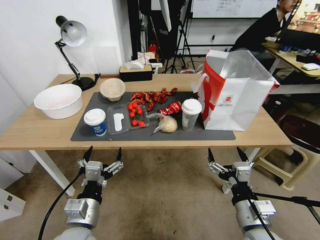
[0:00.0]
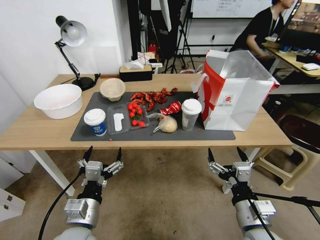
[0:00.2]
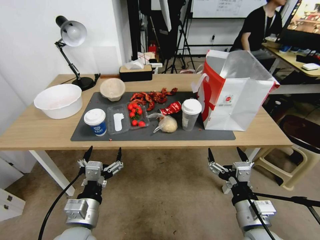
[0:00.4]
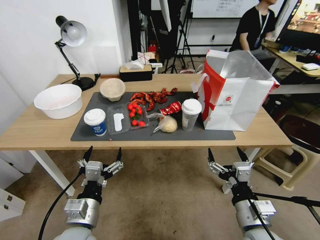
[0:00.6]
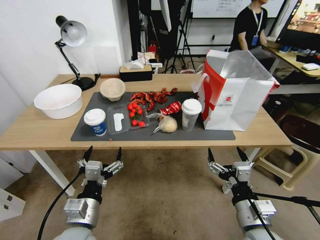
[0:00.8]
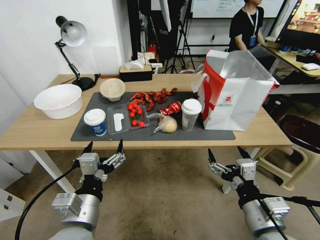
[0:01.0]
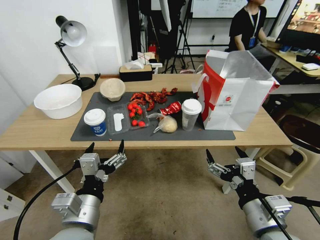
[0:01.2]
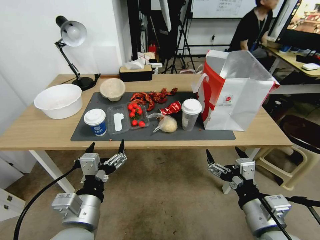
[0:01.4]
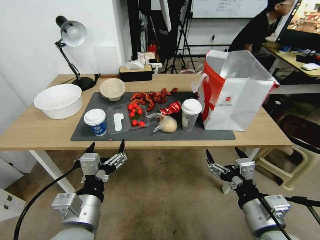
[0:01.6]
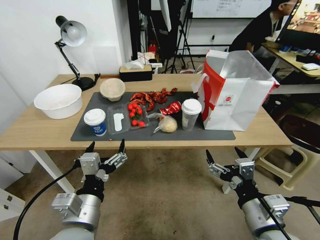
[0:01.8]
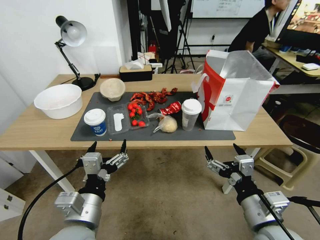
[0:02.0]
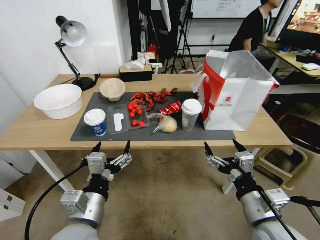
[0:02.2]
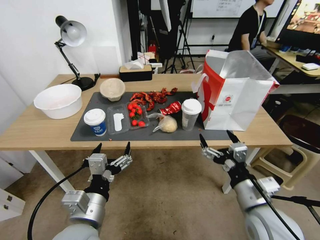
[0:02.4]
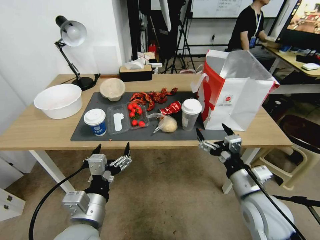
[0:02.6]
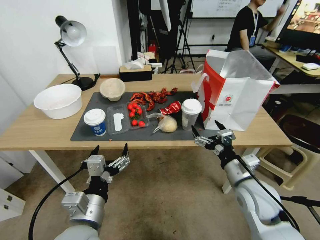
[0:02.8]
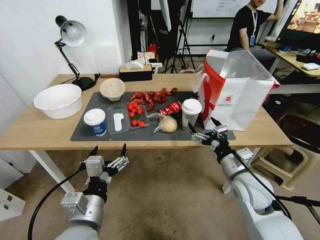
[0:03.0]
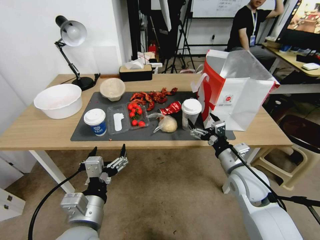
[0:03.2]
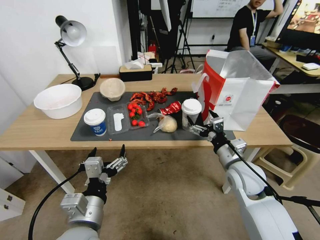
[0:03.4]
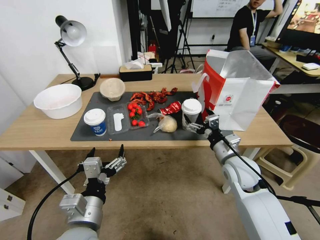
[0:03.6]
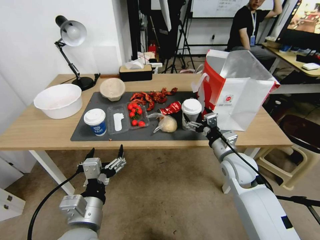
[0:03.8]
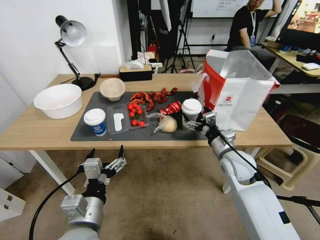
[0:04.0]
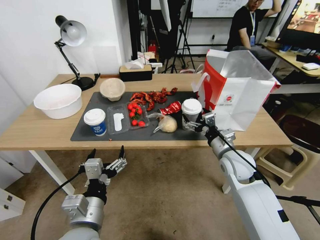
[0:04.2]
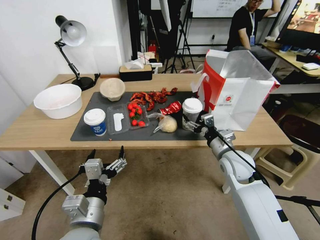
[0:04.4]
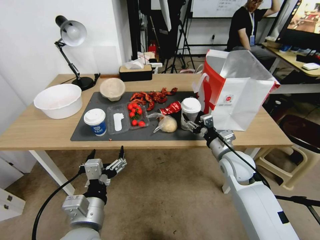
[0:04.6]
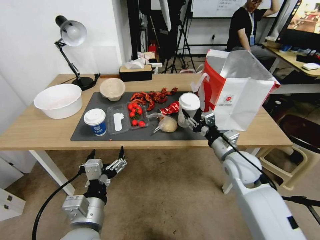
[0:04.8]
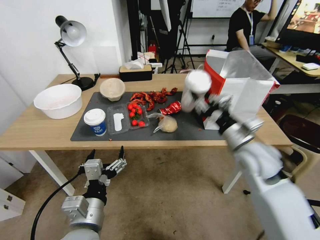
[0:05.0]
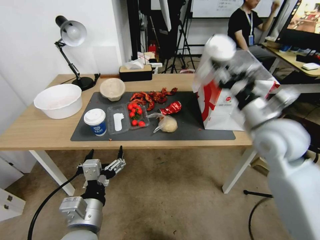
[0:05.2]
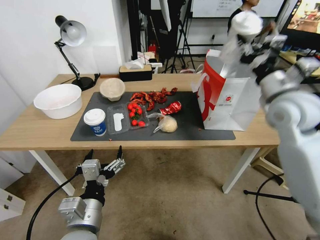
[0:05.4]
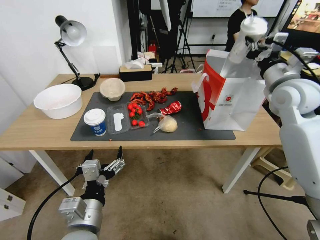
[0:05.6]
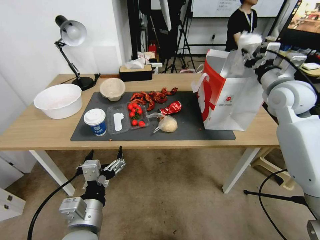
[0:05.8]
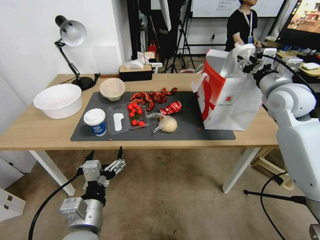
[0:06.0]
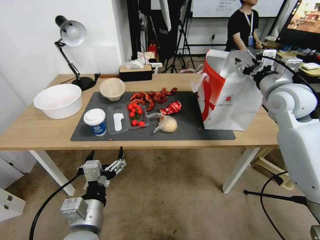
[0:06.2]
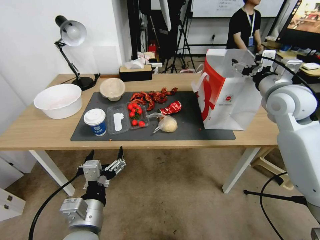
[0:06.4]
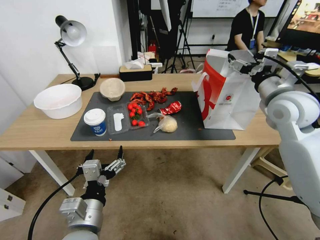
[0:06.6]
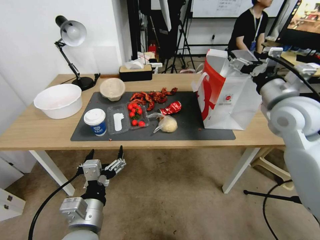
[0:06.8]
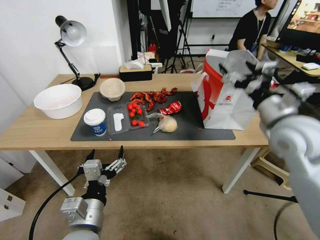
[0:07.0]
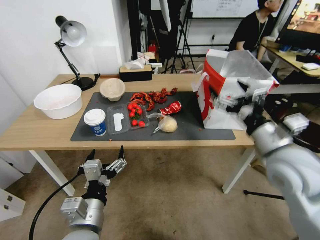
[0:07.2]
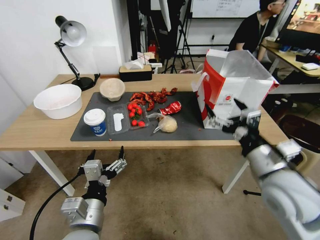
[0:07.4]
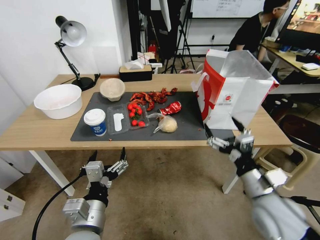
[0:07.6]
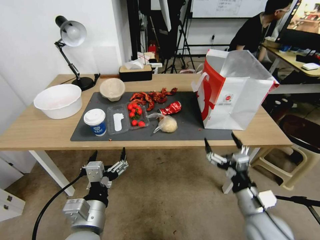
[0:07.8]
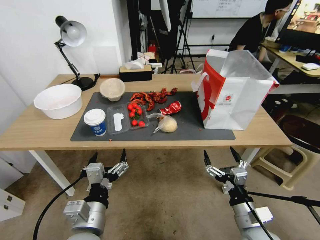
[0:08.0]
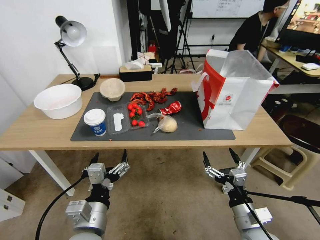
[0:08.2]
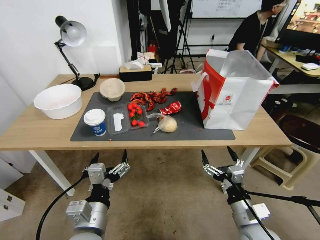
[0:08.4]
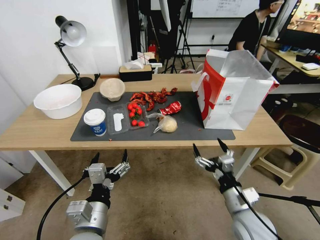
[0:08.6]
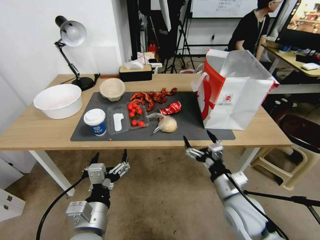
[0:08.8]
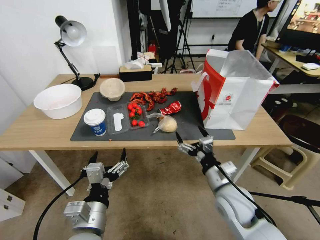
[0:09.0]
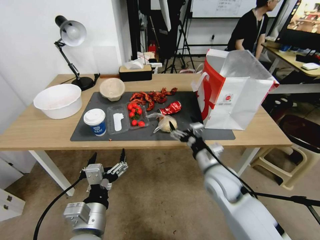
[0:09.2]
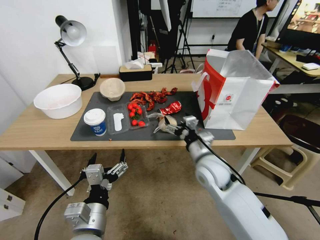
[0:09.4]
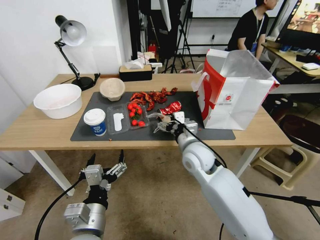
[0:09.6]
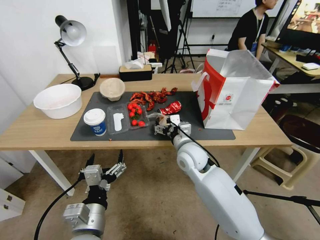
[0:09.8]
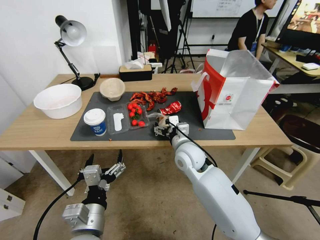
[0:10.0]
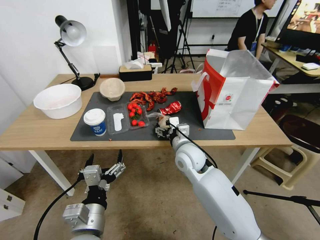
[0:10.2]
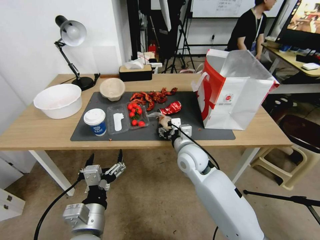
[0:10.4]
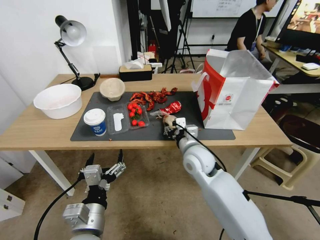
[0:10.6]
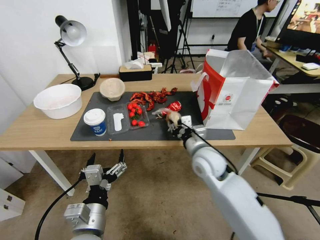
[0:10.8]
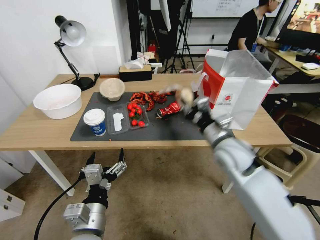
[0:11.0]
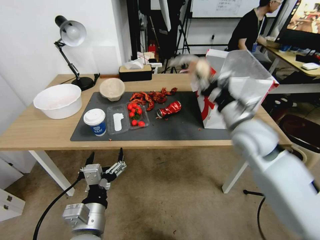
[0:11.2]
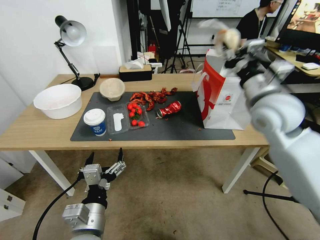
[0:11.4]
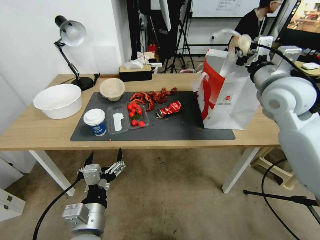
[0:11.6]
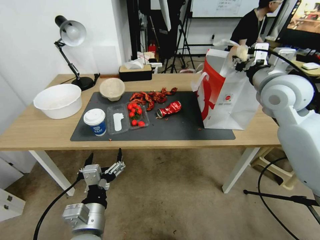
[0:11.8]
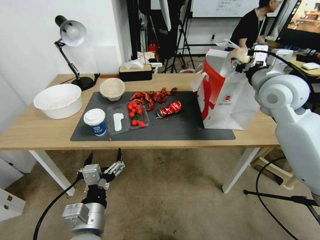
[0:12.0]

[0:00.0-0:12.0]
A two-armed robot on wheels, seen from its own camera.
0:01.6 to 0:03.0: The right gripper is displaced forward by roughly 15 cm.
0:03.0 to 0:04.4: The right gripper is displaced forward by some 10 cm.
0:04.4 to 0:06.0: The right gripper goes approximately 25 cm upward, to the right and forward, and closes.
0:06.0 to 0:07.6: The right gripper heads backward and downward, covering roughly 30 cm, and opens up.
0:07.6 to 0:09.0: The right gripper travels downward by approximately 5 cm.
0:09.0 to 0:10.4: The right gripper travels forward and to the left by about 20 cm, and closes up.
0:10.4 to 0:12.0: The right gripper travels upward and to the right by roughly 30 cm, and closes and opens again.

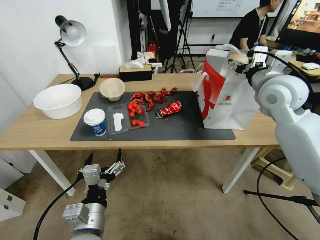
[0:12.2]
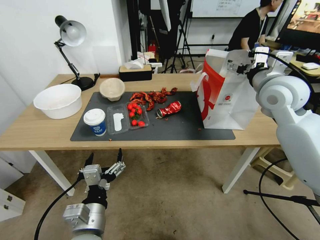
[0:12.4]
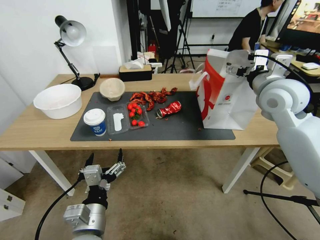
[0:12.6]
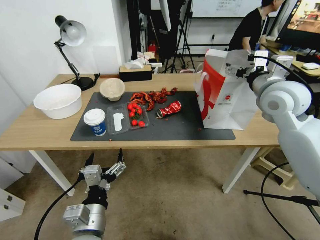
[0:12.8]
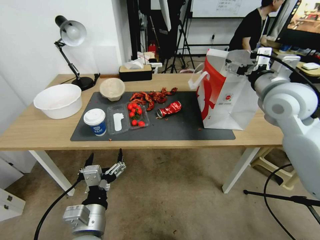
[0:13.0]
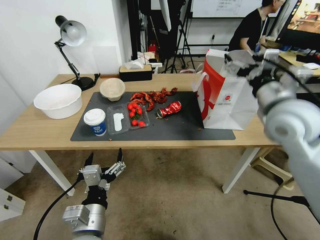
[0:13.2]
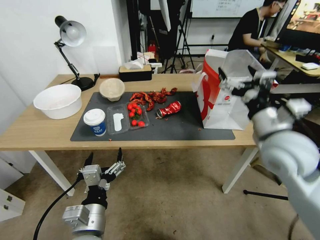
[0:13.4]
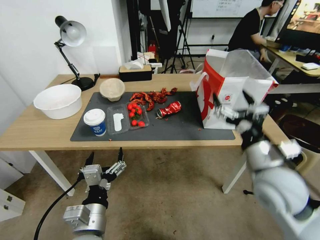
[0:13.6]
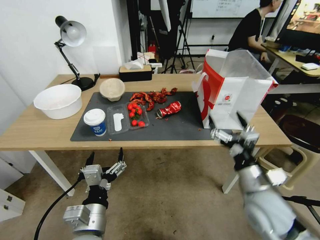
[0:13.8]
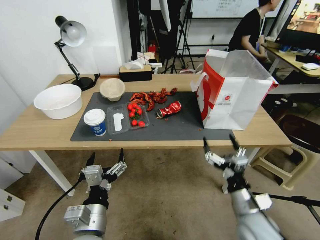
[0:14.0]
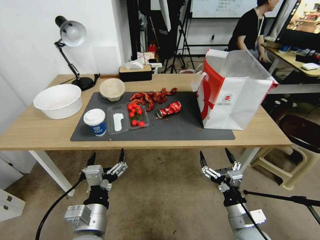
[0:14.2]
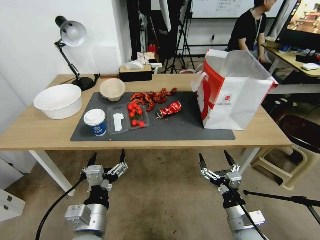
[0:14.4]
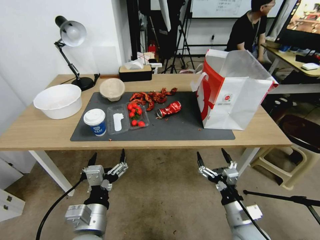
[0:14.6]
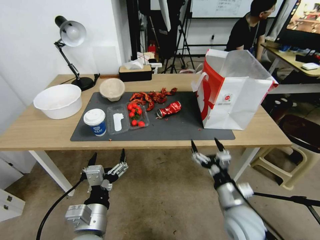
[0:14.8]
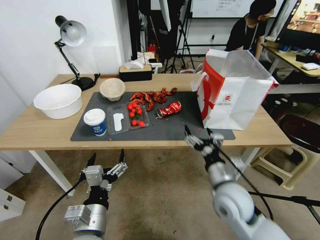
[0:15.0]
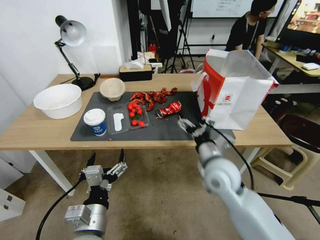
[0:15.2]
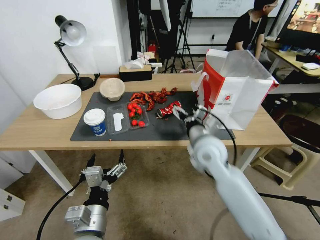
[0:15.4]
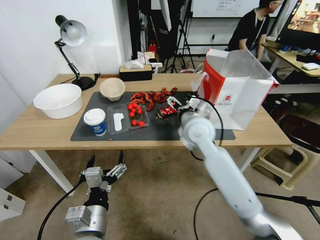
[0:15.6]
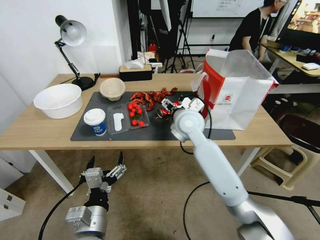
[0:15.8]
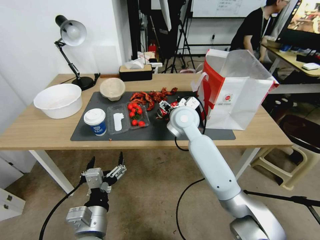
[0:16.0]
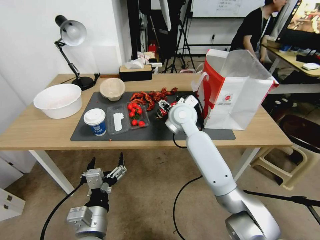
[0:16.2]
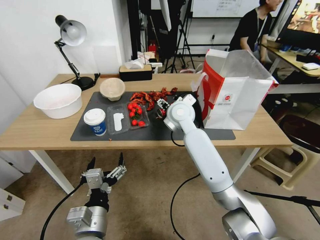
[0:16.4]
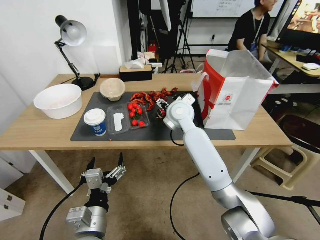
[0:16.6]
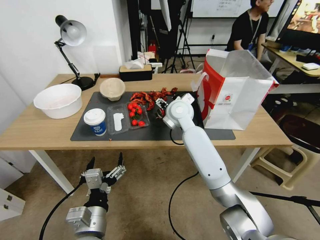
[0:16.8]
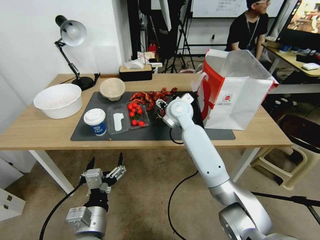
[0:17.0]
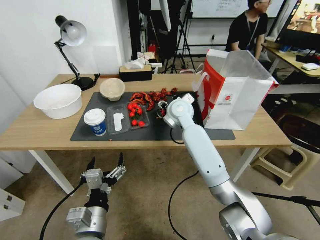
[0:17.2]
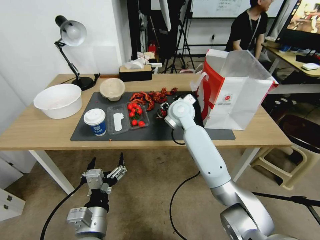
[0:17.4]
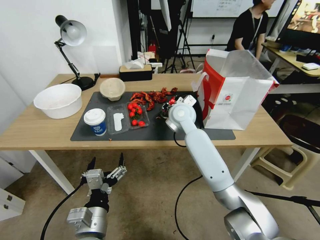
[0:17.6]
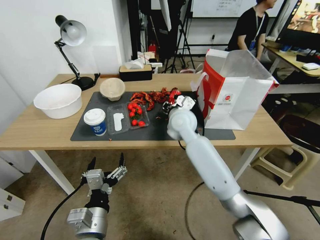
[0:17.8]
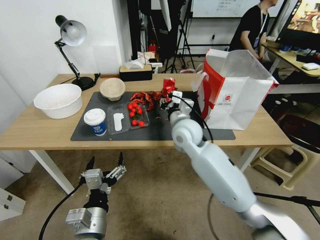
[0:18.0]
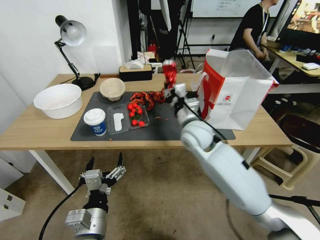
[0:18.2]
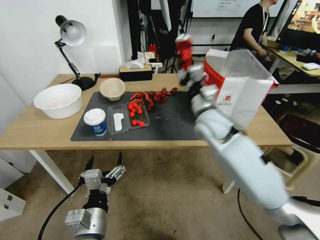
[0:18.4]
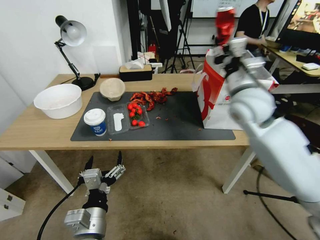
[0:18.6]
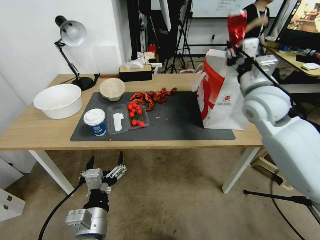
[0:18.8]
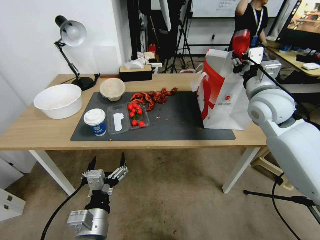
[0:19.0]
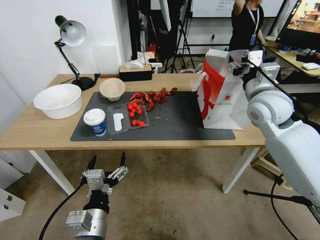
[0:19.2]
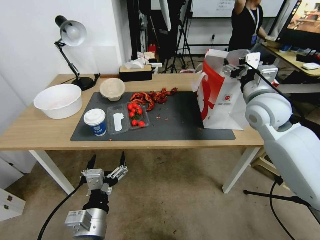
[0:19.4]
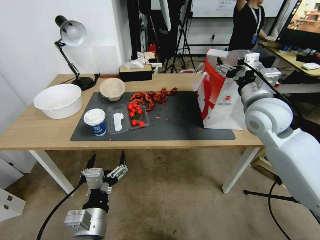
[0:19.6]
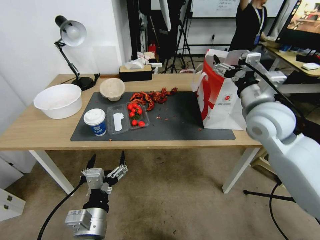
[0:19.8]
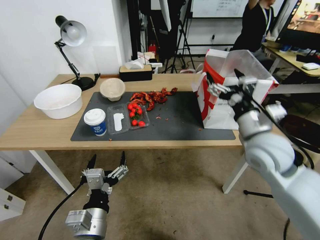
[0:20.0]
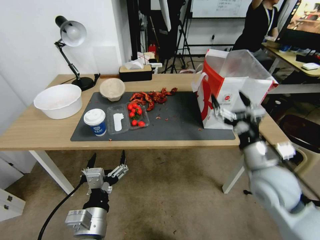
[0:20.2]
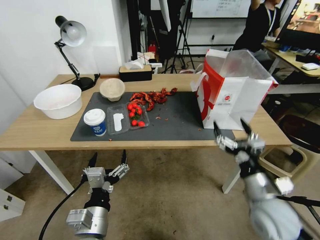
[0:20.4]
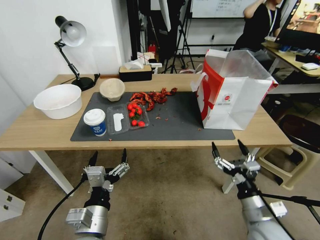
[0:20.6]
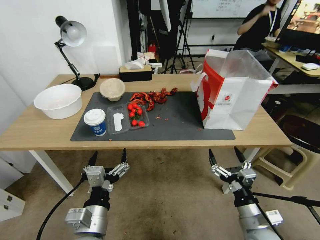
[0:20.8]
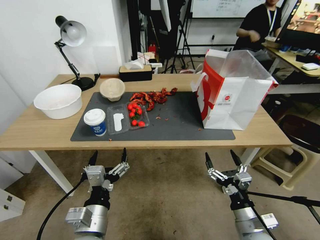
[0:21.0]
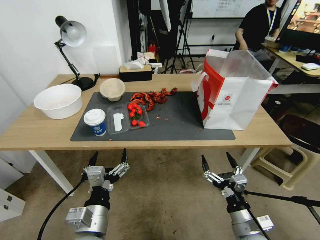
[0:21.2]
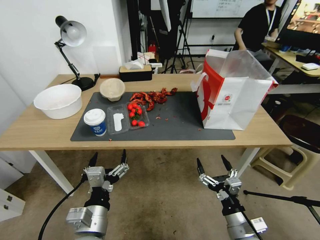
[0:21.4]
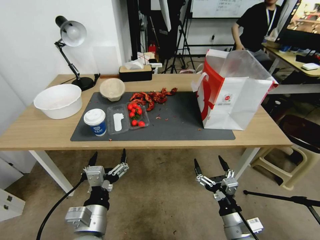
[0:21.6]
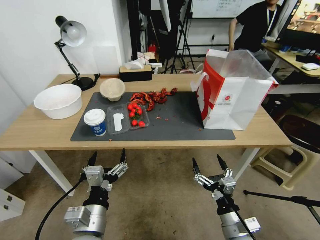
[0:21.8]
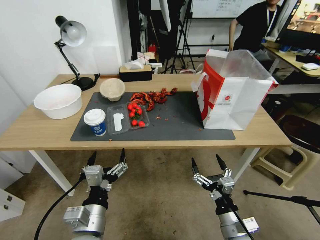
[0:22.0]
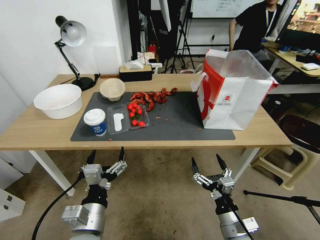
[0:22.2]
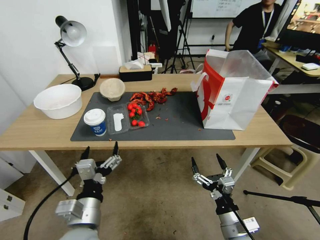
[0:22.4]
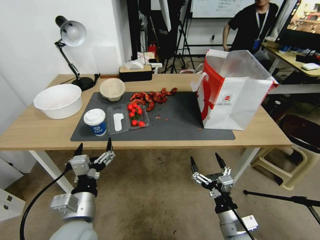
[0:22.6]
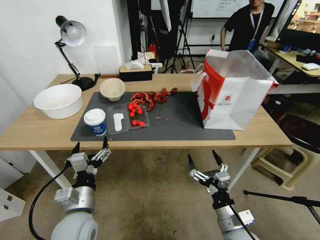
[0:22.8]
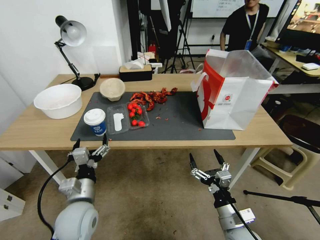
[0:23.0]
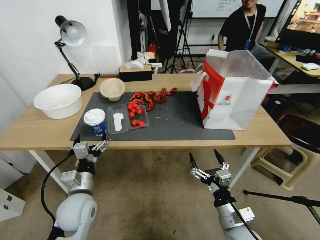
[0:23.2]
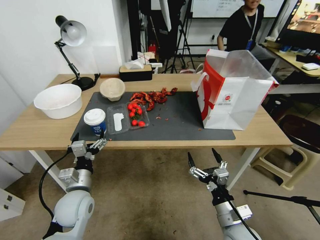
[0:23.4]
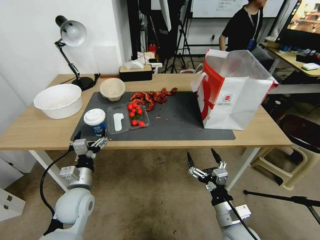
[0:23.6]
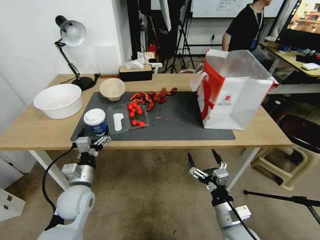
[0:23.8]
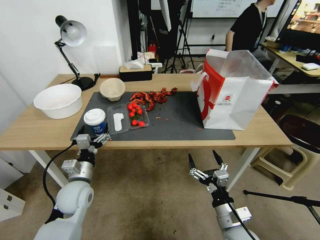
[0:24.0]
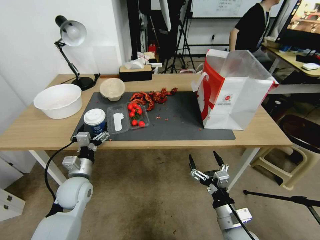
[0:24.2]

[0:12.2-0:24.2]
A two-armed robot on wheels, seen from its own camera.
0:12.2 to 0:13.8: The right gripper goes roughly 30 cm downward and backward.
0:13.8 to 0:15.2: The right gripper heads to the left and forward, covering roughly 15 cm.
0:15.2 to 0:16.6: The right gripper shifts roughly 20 cm forward and to the left.
0:16.6 to 0:18.2: The right gripper shifts some 5 cm backward, and closes up.
0:18.2 to 0:19.8: The right gripper moves to the right and upward, approximately 20 cm, and opens.
0:19.8 to 0:21.2: The right gripper shifts roughly 40 cm downward and backward.
0:21.2 to 0:22.6: The grippers stay close to where they were, moving slightly.
0:22.6 to 0:24.2: The left gripper moves forward, to the left and downward, some 20 cm.
